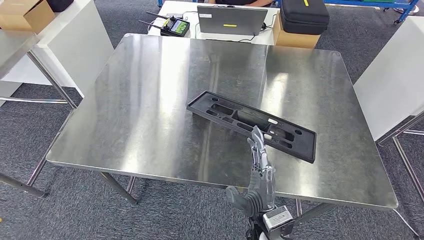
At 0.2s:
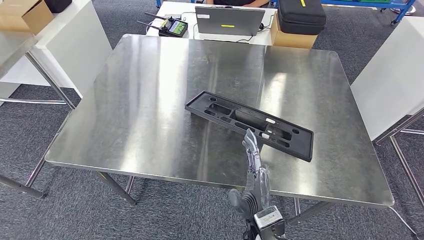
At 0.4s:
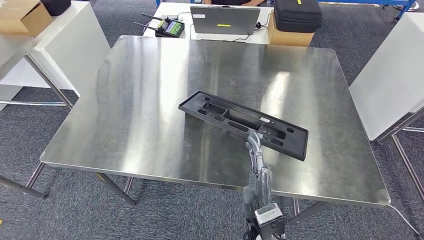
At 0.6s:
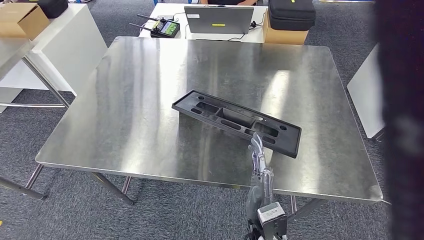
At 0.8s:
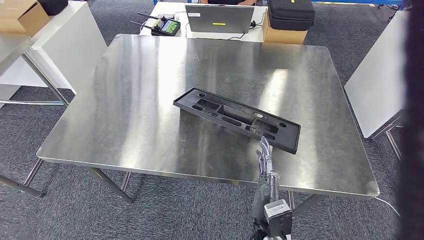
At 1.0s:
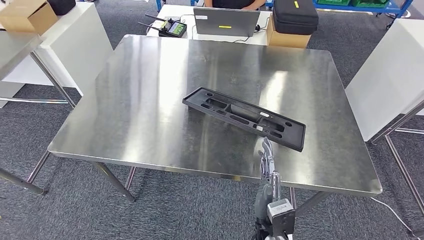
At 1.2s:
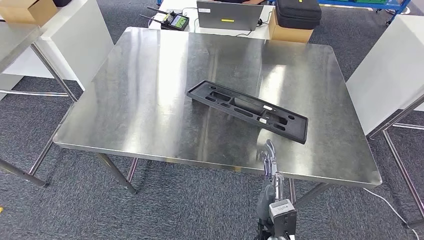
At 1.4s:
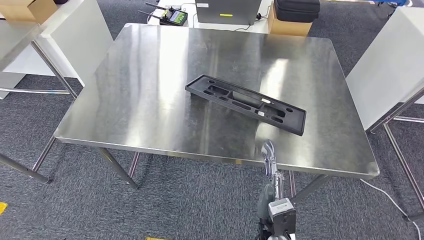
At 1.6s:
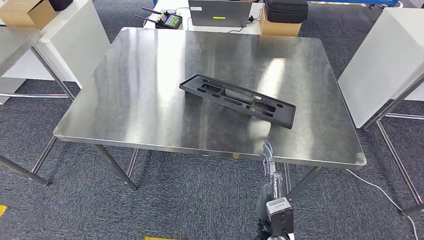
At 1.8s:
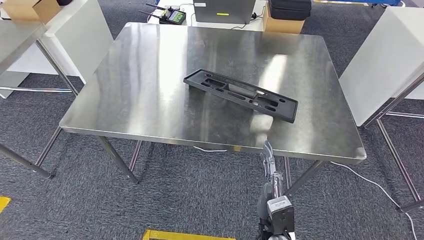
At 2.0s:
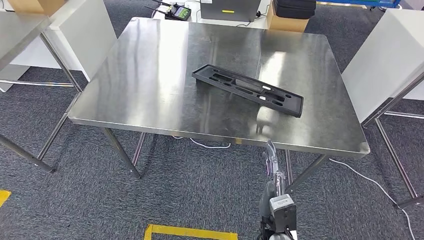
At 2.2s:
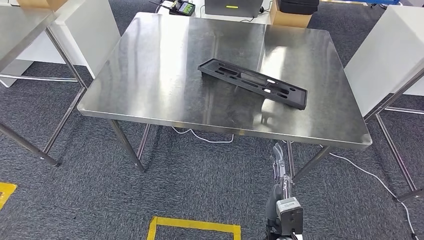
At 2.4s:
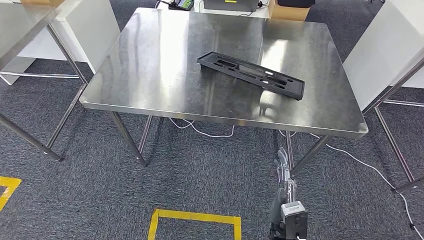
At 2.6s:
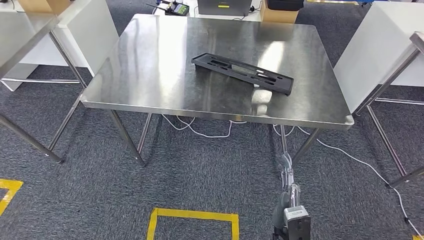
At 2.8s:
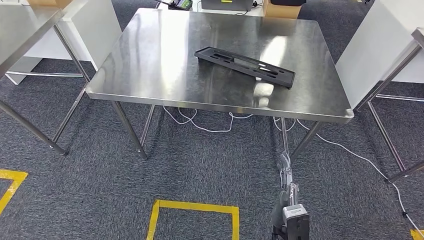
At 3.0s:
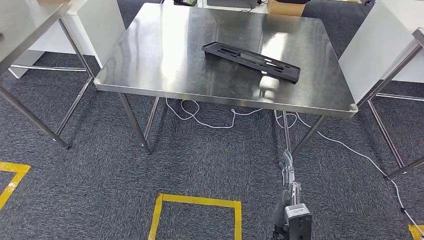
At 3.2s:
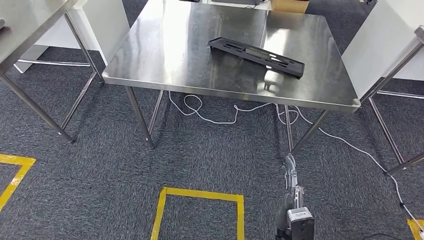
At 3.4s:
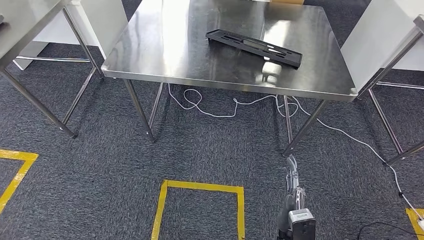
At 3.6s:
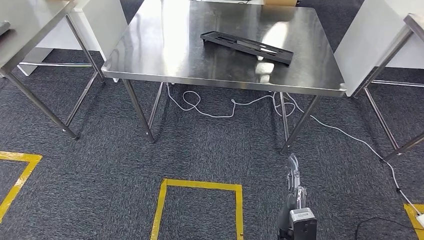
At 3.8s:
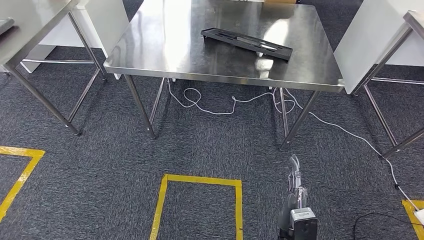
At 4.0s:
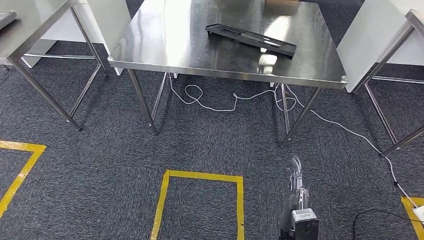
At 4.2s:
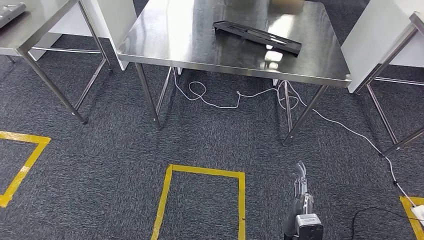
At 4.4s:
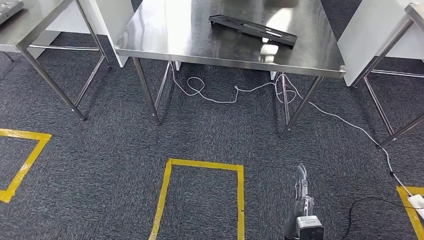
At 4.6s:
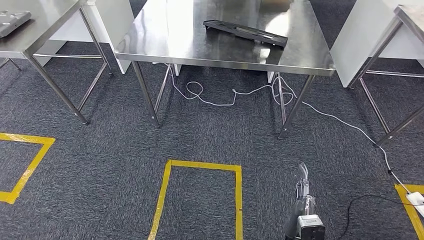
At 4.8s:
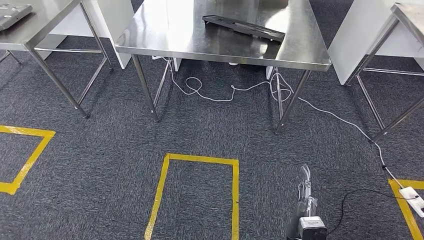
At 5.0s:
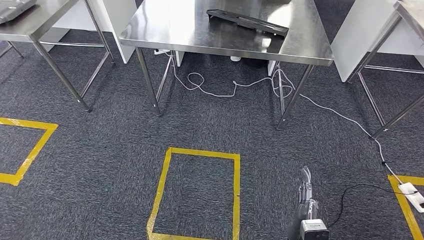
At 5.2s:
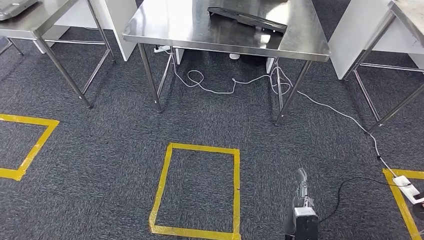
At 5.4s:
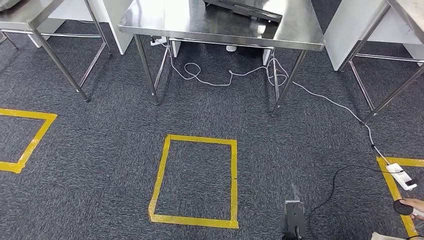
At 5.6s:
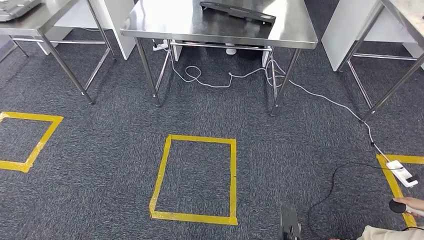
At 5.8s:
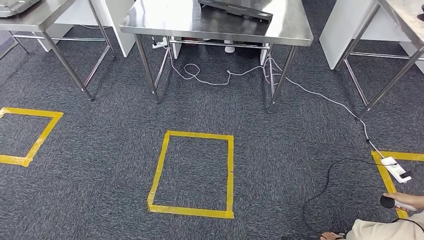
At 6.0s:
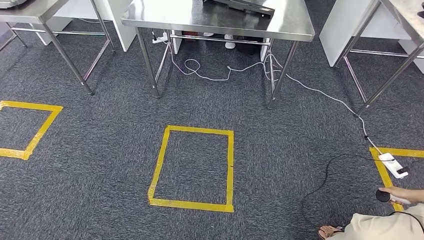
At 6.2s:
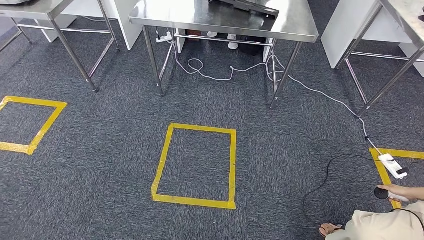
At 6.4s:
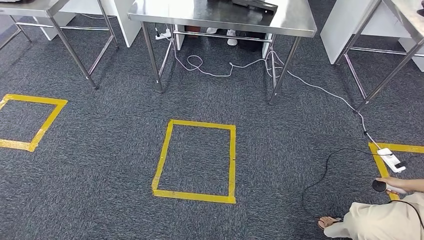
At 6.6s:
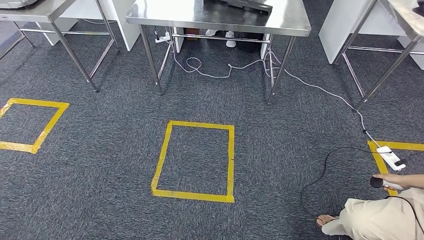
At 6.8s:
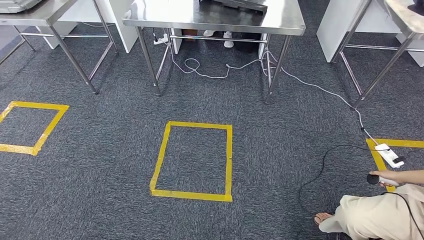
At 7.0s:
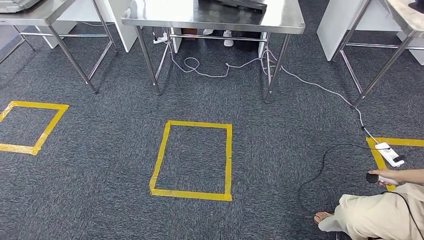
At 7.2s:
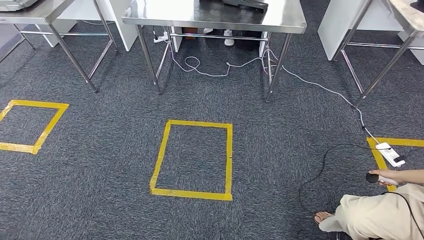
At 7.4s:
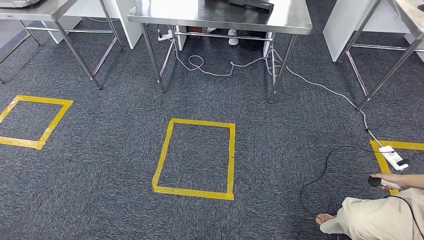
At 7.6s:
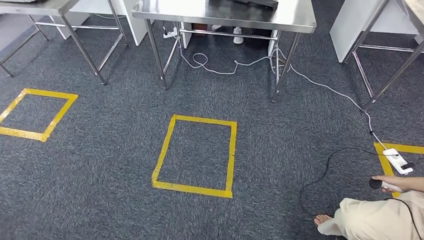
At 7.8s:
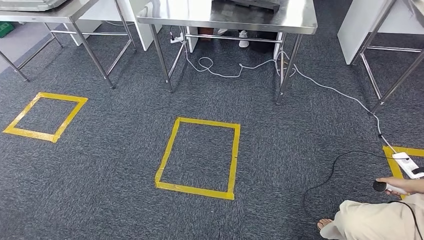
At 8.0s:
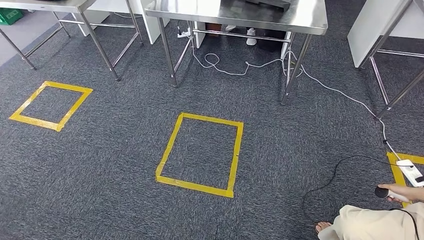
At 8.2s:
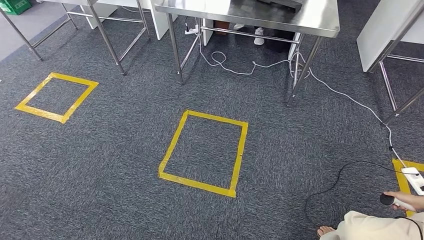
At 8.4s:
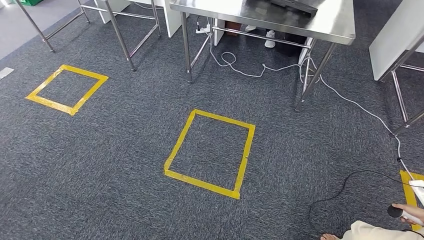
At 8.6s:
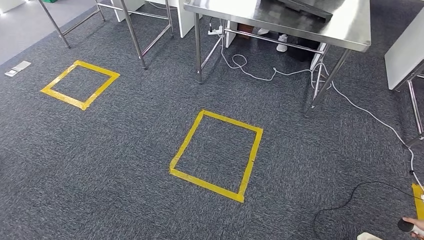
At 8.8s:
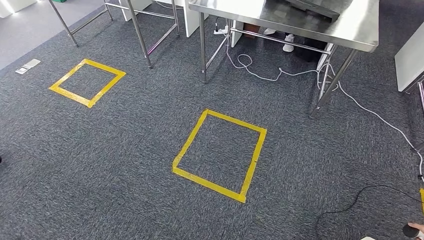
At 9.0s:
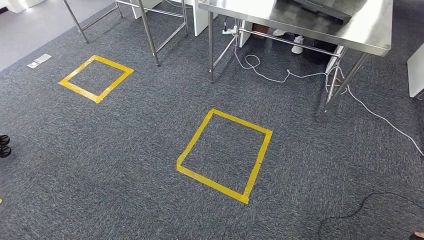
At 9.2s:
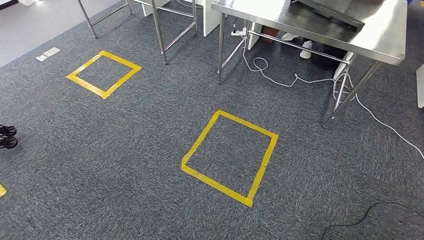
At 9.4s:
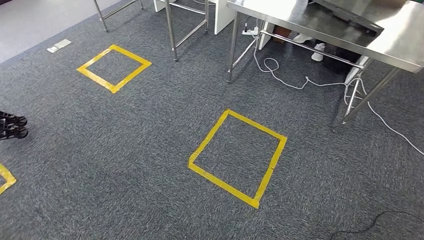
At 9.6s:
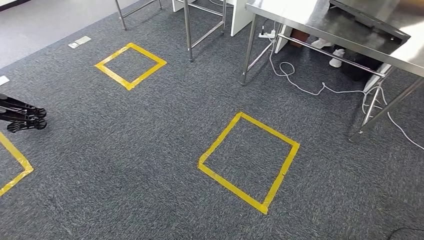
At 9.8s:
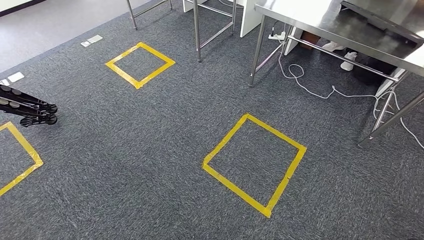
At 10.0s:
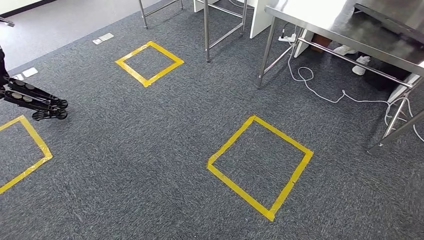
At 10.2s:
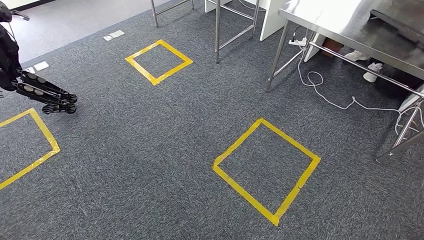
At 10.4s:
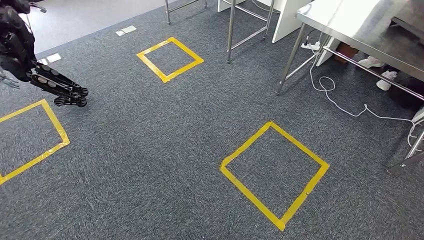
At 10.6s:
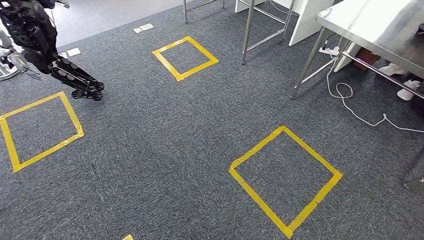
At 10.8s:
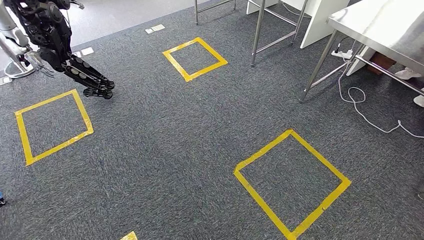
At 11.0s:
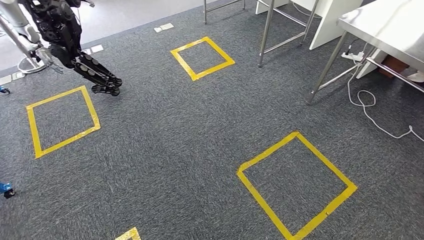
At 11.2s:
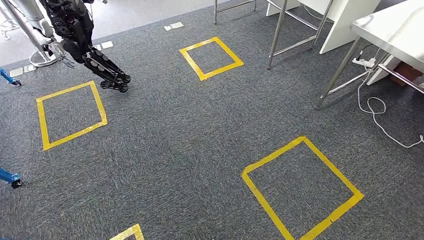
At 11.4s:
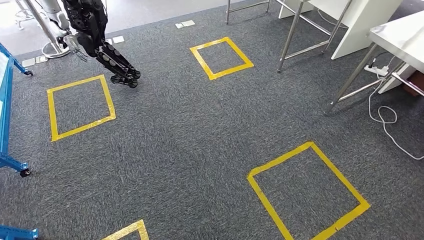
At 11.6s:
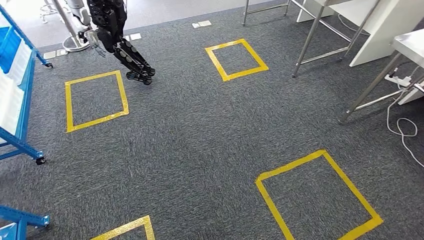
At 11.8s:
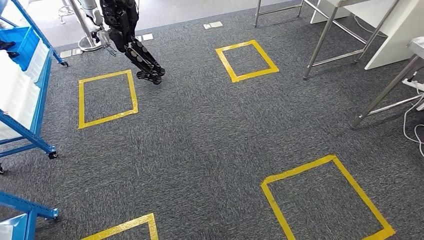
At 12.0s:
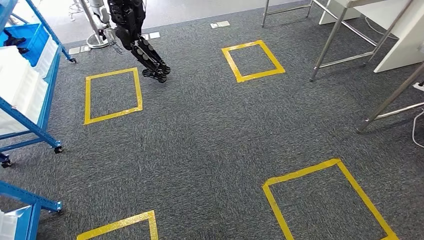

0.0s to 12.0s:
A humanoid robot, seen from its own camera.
Step, 0.0s to 5.6s: Insert the large material into the corresponding slot on the workbench.

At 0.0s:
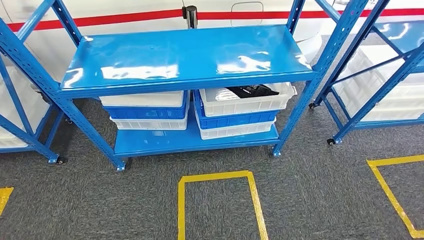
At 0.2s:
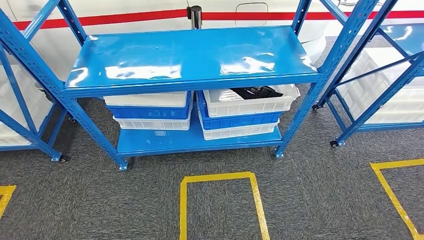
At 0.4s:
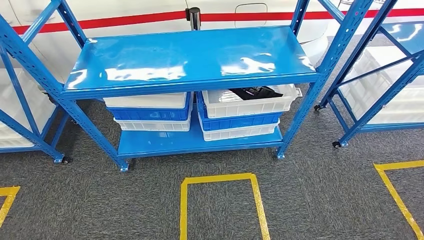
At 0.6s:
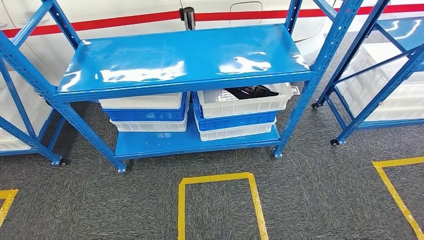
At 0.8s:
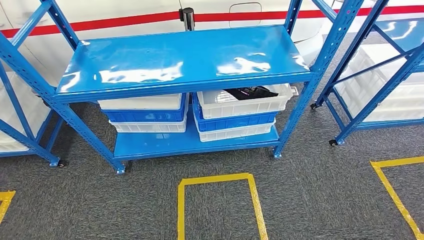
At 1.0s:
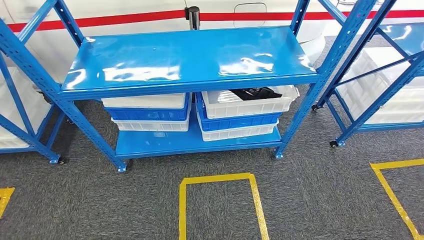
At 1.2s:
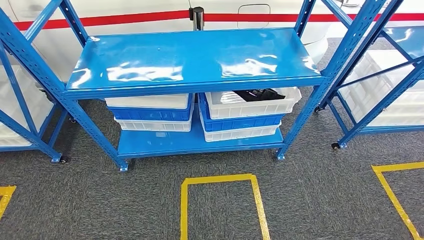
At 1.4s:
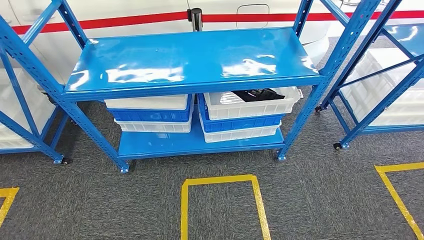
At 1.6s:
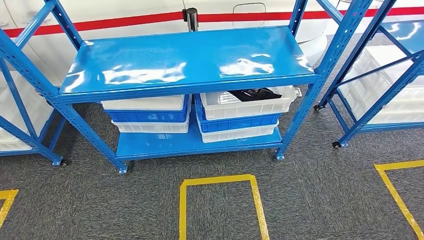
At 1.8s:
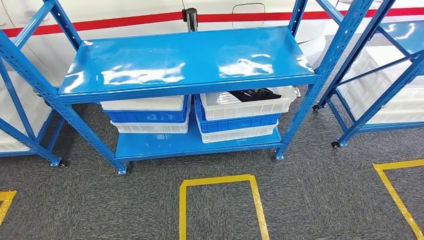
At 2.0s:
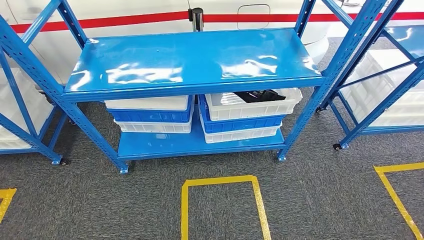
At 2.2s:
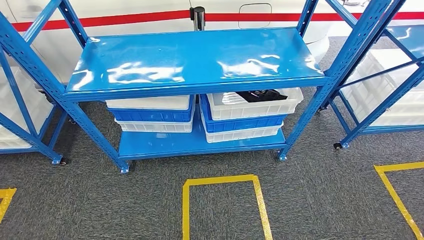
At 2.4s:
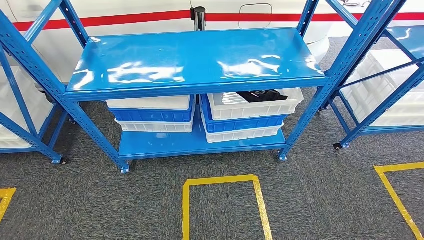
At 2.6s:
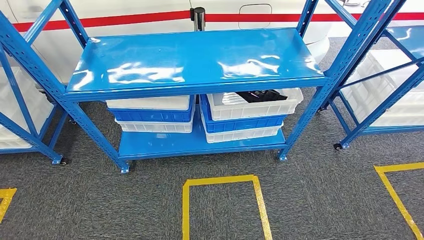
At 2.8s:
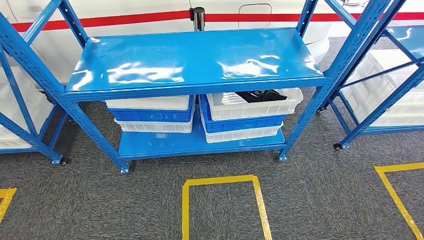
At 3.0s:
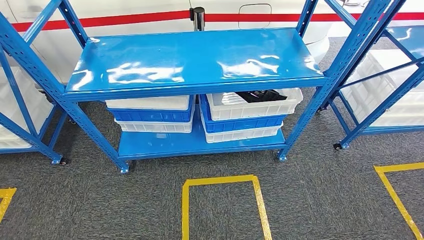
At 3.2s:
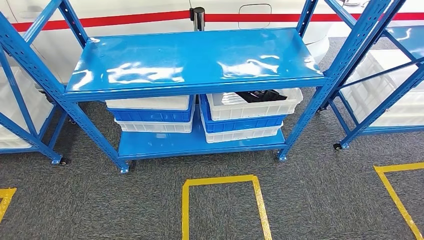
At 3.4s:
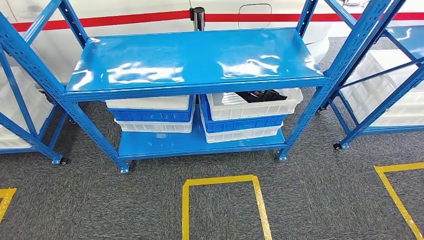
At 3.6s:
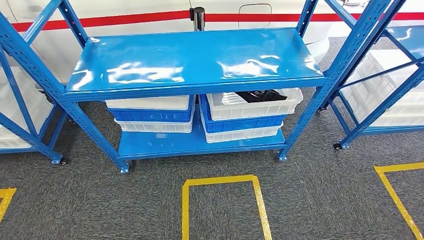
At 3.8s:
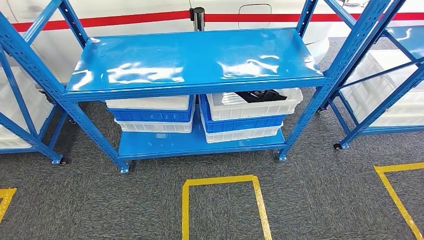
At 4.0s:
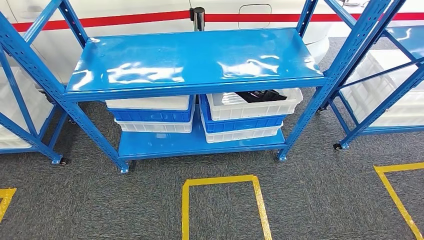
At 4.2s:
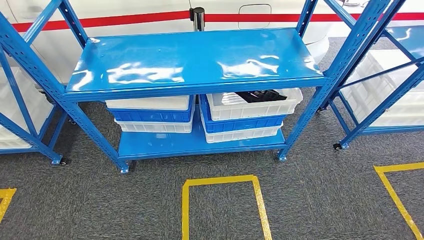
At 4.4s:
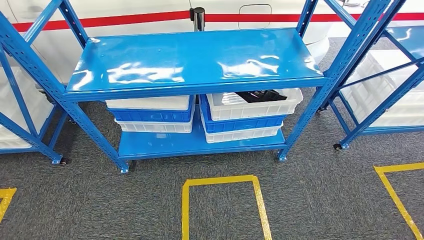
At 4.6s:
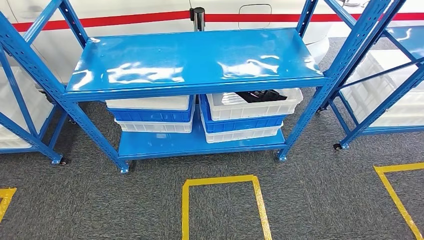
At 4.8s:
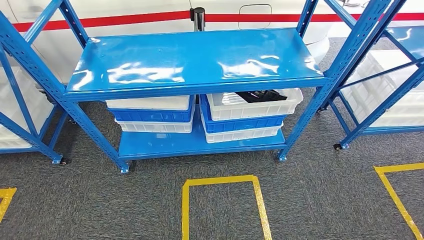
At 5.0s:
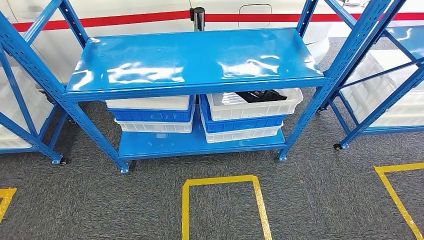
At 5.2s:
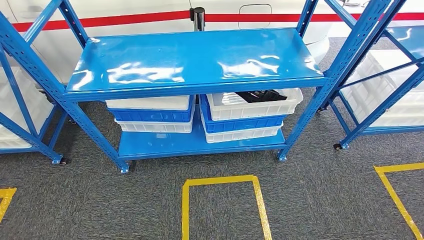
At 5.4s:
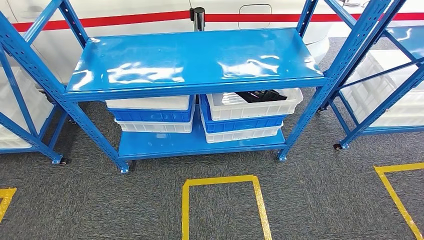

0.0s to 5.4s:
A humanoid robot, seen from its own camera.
Step, 0.0s to 5.4s: Return to the initial position at the shelf.
1.4s to 2.8s: The hands stay close to where they were, moving slightly.
